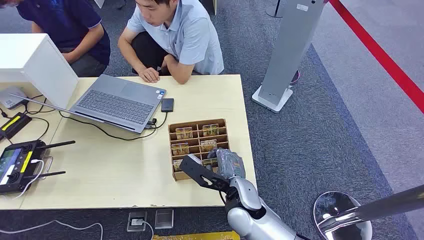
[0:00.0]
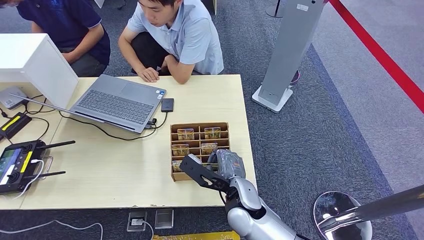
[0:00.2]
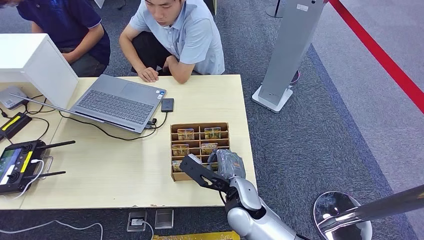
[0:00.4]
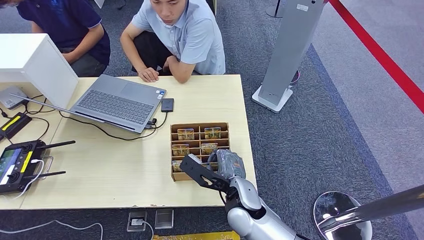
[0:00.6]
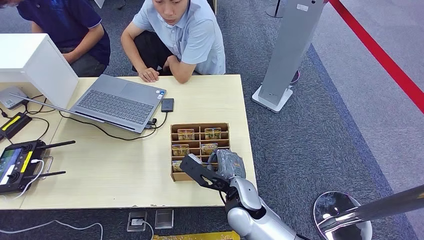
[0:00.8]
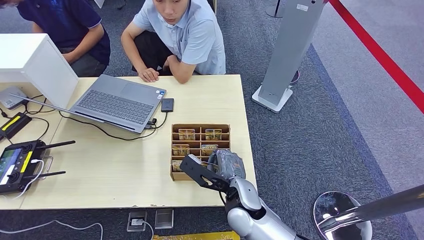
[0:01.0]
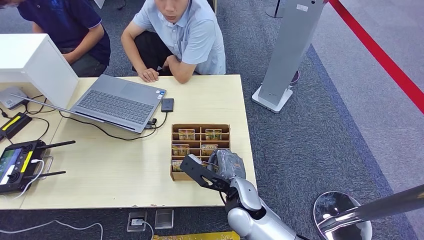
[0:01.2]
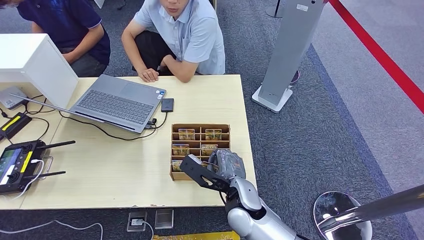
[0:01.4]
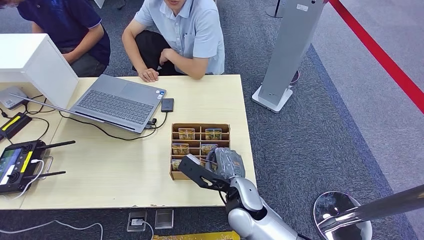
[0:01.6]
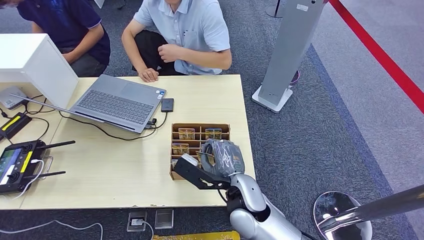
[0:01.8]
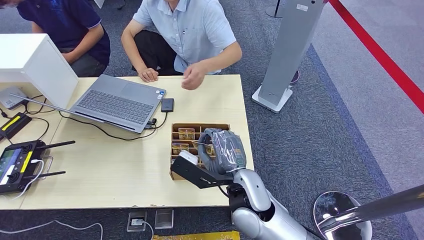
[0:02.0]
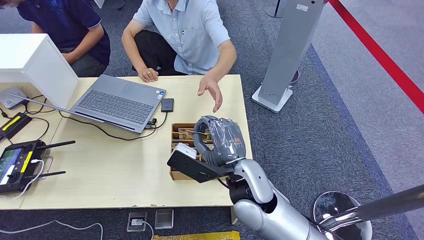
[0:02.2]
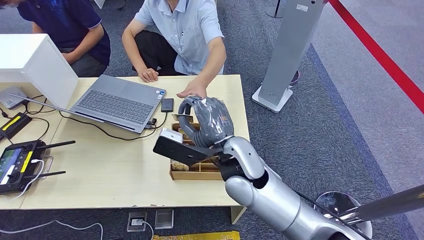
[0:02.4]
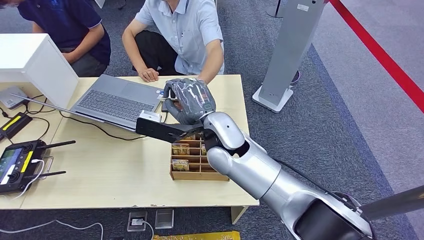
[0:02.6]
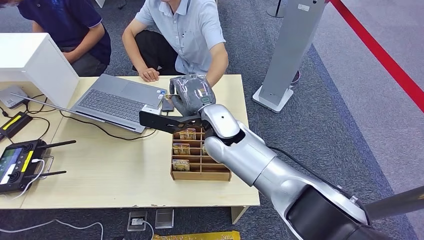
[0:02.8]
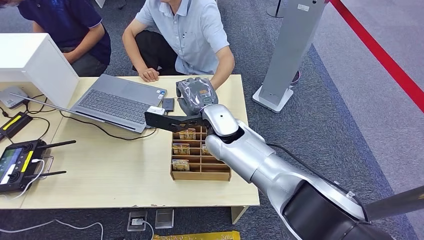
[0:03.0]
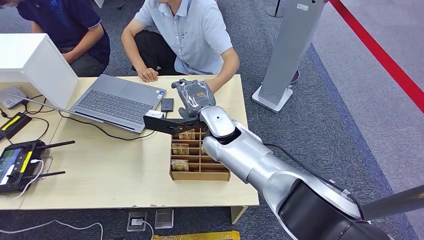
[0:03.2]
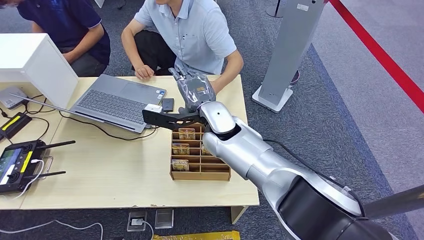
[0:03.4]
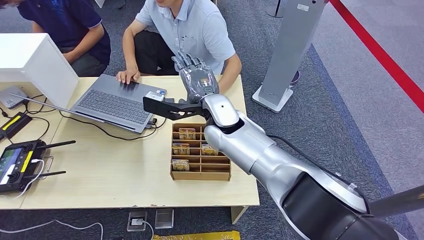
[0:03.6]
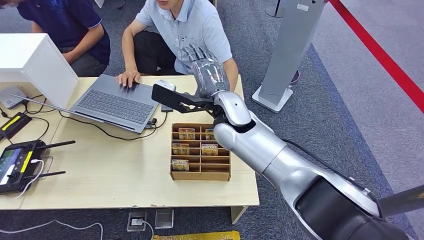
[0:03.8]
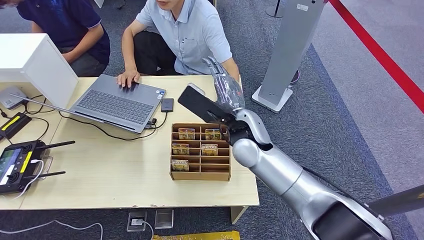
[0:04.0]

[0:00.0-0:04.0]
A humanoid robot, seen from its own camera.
Step, 0:00.0 to 0:02.0: Pick up the key card from the card box.
Step, 0:02.2 to 0:04.0: Hand the key card to the target.
0:01.4 to 0:02.6: The right hand travels upward and forward by approximately 15 cm.
0:02.6 to 0:04.0: The right hand is displaced to the right by roughly 5 cm.
